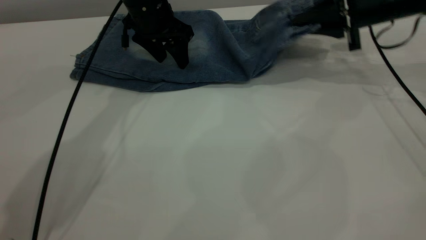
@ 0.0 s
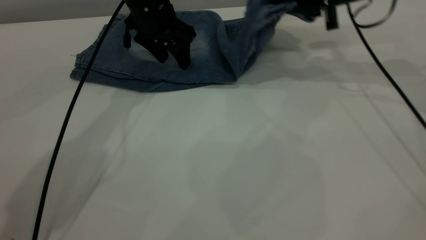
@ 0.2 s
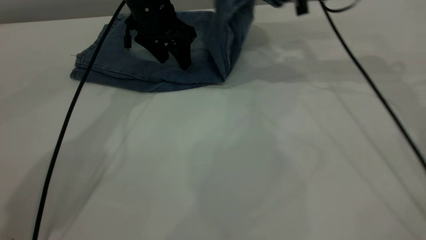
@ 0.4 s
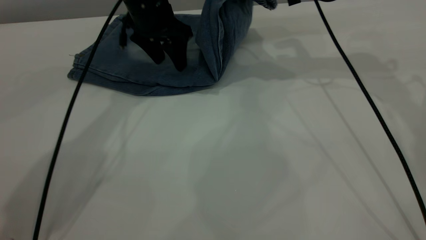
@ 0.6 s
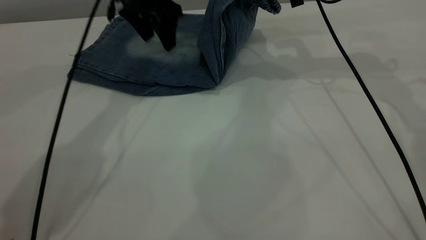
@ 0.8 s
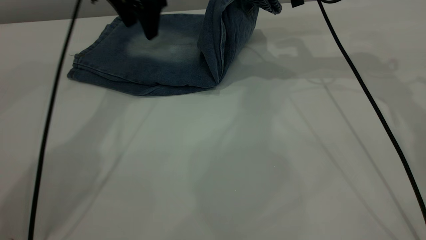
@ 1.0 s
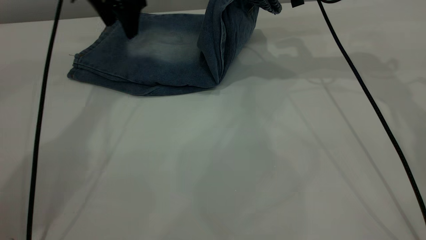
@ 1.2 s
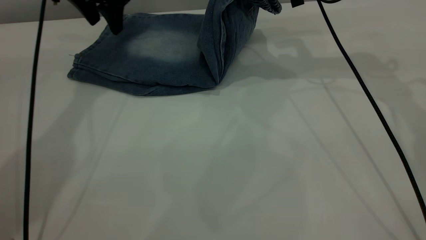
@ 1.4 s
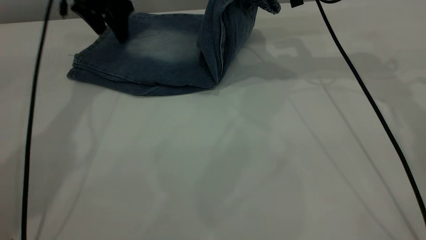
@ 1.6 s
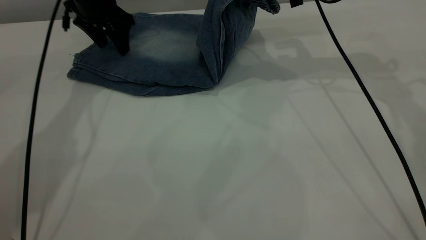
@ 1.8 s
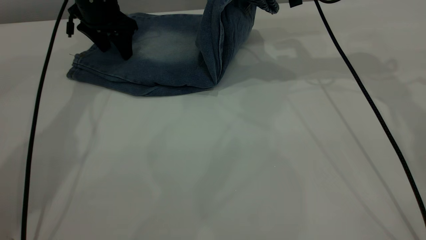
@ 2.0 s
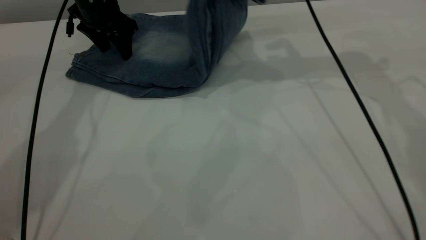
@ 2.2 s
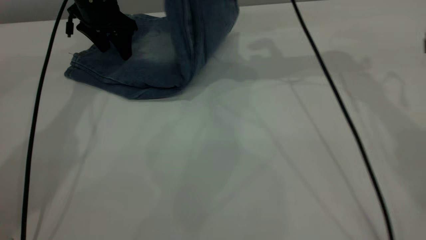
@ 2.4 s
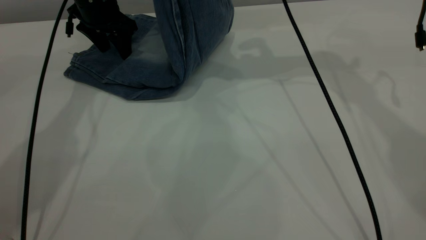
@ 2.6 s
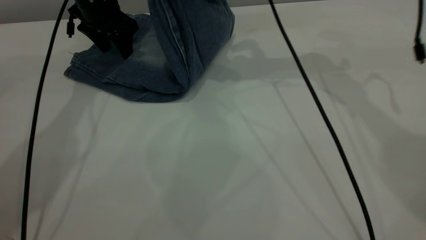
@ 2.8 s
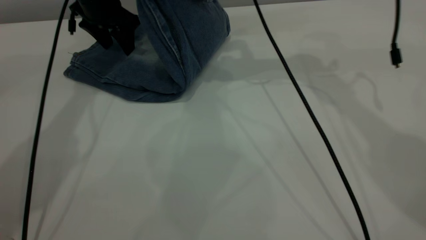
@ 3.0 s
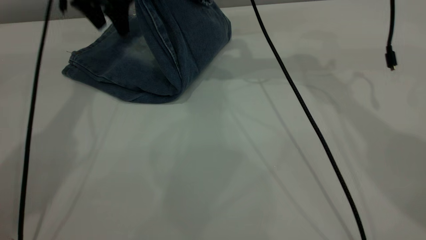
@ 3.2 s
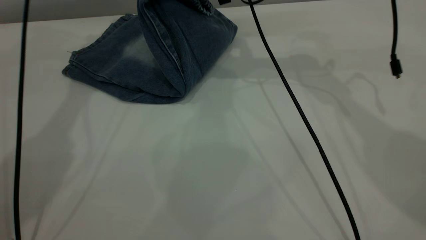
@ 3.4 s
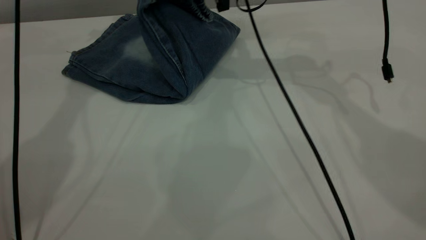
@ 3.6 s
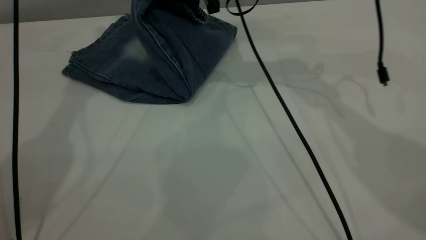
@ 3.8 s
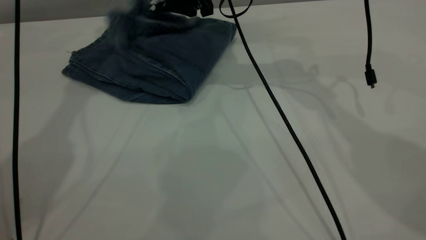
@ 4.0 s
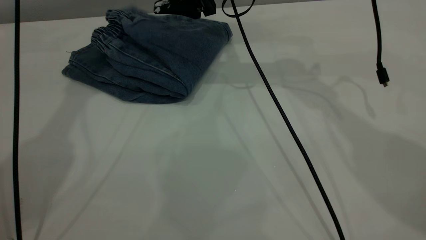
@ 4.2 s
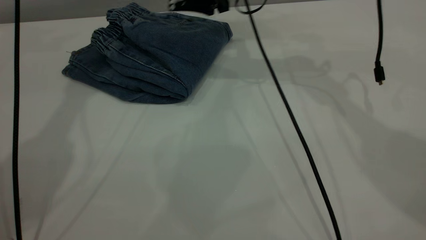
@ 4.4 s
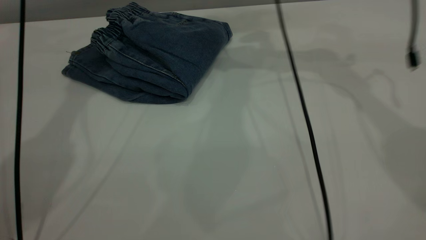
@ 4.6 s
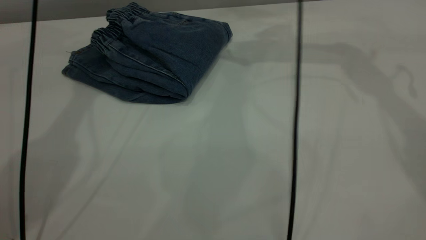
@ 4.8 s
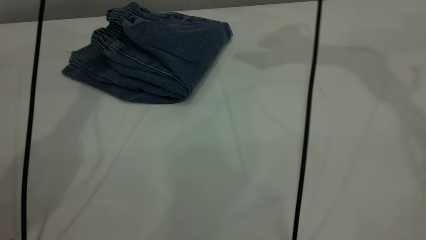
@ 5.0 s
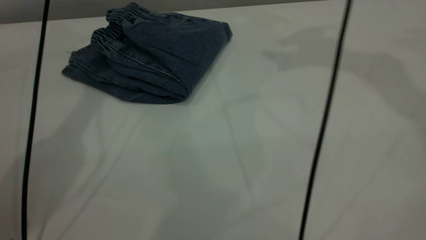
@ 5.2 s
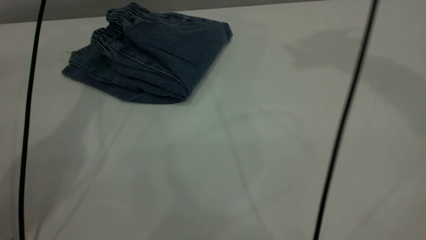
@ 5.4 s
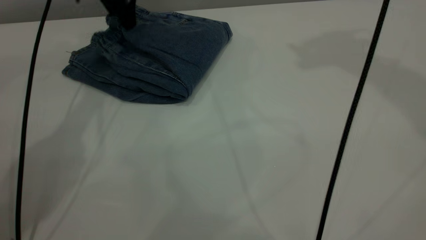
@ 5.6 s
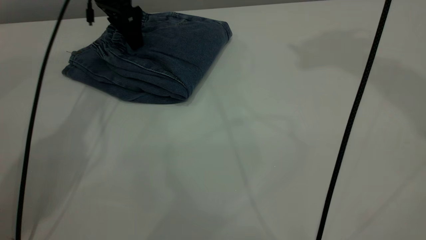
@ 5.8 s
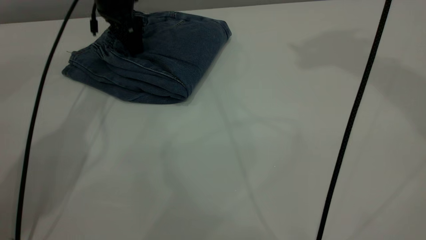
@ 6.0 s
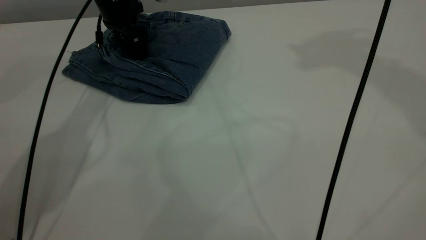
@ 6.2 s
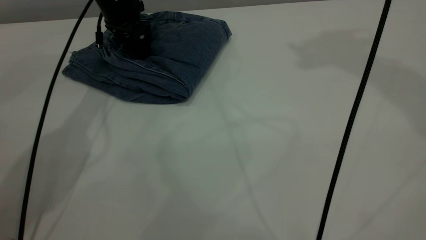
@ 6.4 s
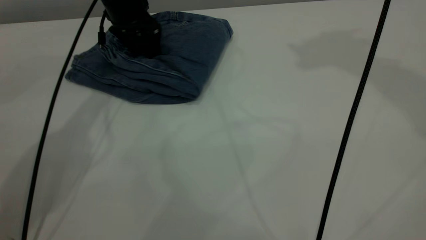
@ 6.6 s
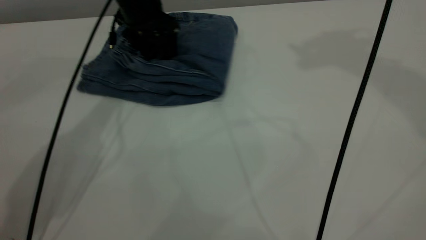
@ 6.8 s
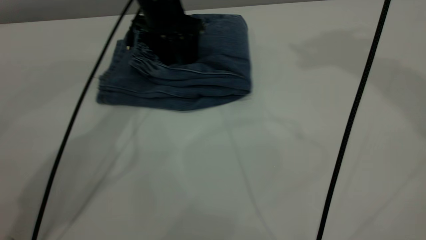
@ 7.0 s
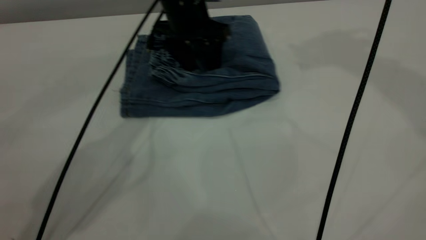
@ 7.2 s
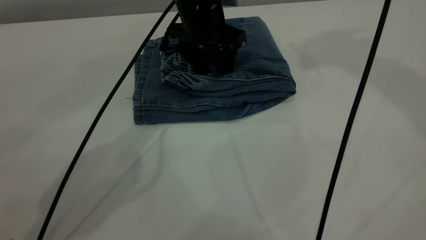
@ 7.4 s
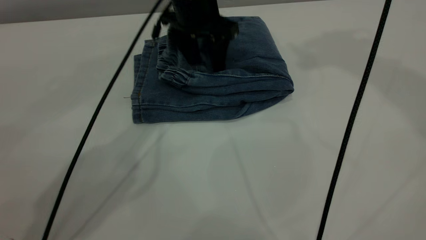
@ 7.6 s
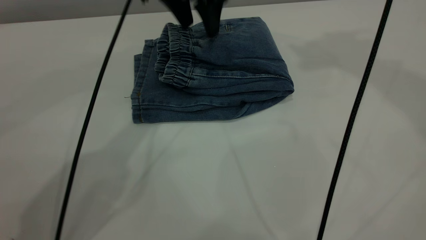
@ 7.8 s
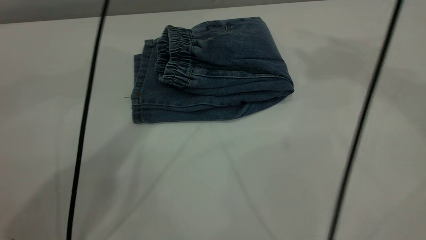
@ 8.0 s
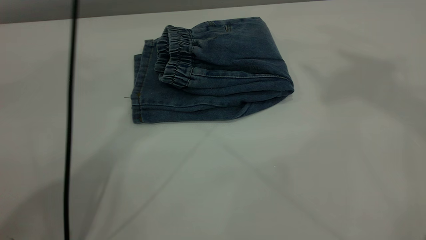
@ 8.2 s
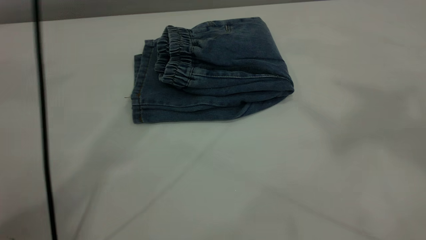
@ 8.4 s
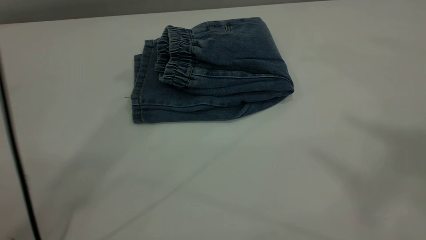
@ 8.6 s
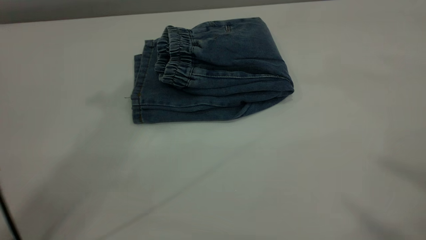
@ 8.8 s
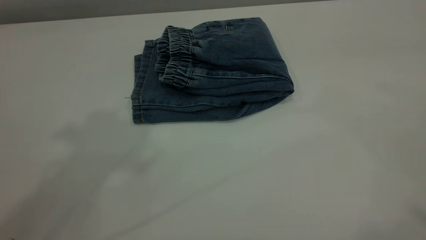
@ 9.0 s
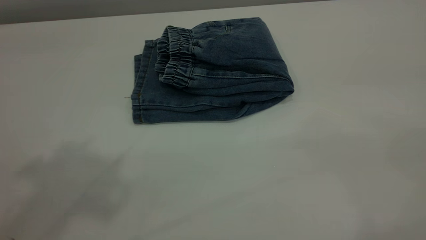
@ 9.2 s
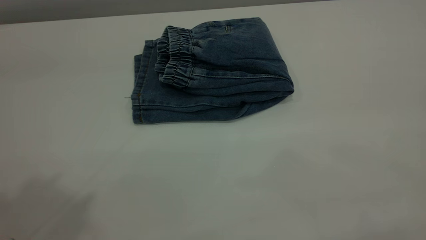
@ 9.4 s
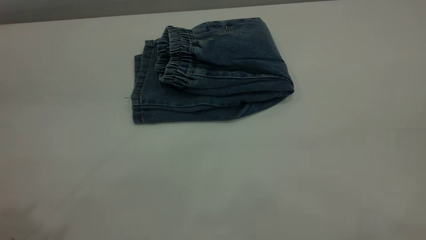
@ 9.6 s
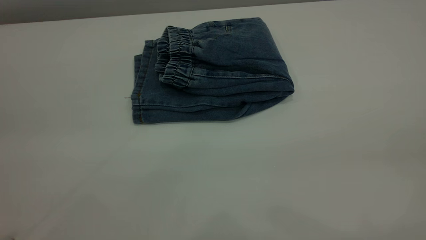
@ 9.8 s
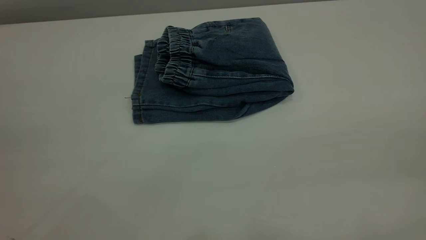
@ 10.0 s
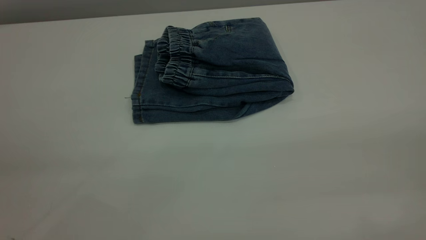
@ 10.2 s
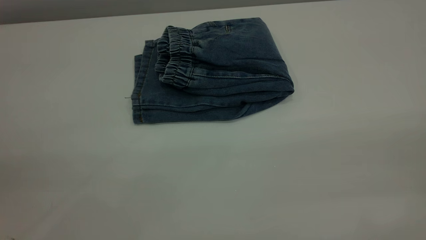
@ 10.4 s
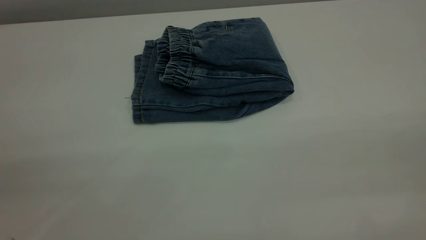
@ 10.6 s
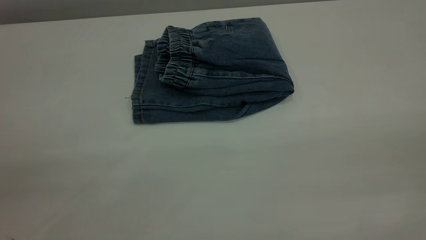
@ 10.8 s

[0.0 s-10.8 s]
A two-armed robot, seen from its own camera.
Step, 0.0 to 4.4 s: Fold your pants from right to left.
0.0 to 1.6 s: The left gripper travels to the left by some 10 cm. The right gripper heads to the left and upward, covering approximately 10 cm.
1.6 to 3.0 s: The right gripper is displaced to the left by about 10 cm.
3.0 to 4.6 s: The right gripper changes place by approximately 5 cm, and opens up. The left gripper heads upward, covering roughly 20 cm.
4.6 to 6.2 s: The right gripper goes some 30 cm upward. Meanwhile the left gripper shifts about 20 cm downward.
6.2 to 7.8 s: The left gripper heads to the right and upward, covering some 15 cm.
7.8 to 9.2 s: The left gripper shifts about 40 cm upward, backward and to the left; the right gripper heads backward, covering approximately 35 cm.

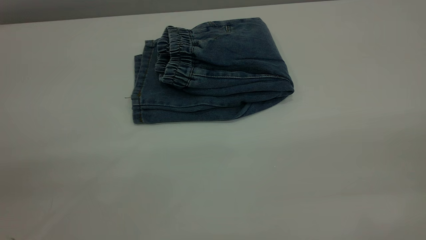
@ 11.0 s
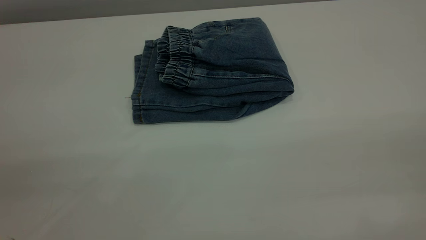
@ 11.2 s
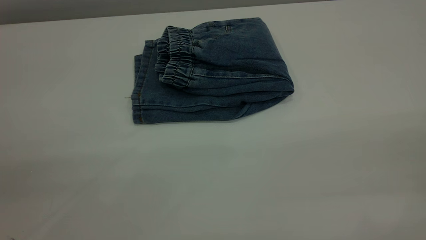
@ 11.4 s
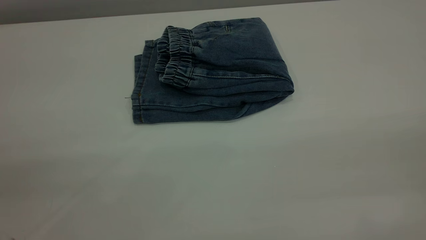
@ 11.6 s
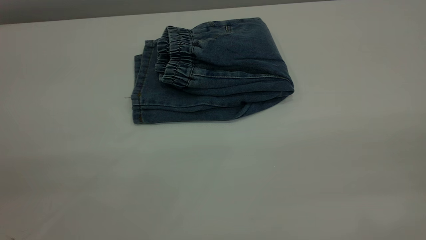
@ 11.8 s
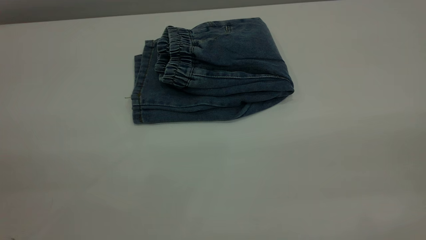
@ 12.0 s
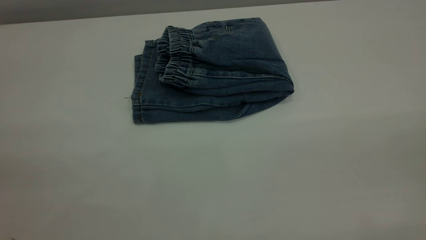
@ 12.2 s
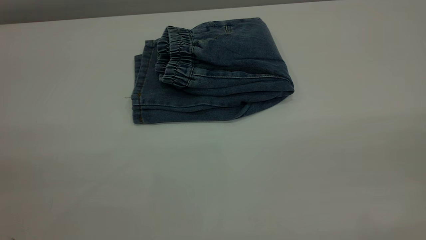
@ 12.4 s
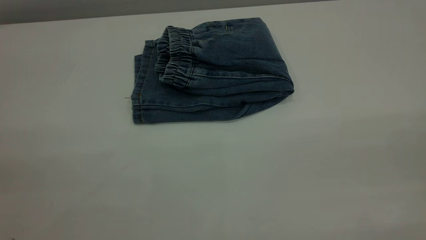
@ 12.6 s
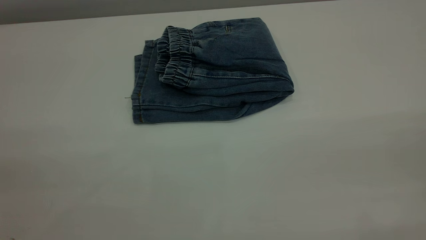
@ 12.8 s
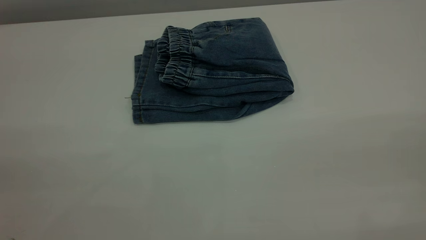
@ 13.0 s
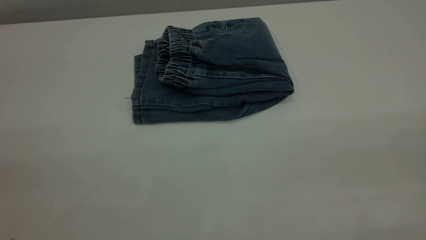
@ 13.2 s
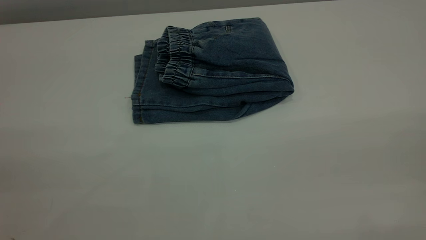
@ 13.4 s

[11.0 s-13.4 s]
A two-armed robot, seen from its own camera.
12.2 to 13.4 s: Neither gripper changes place.
